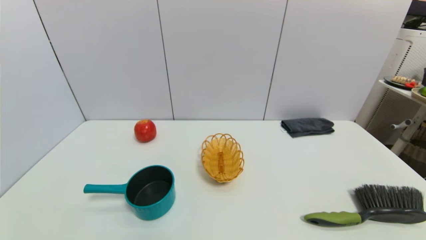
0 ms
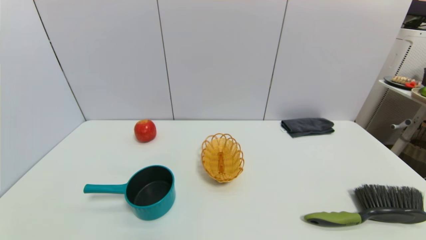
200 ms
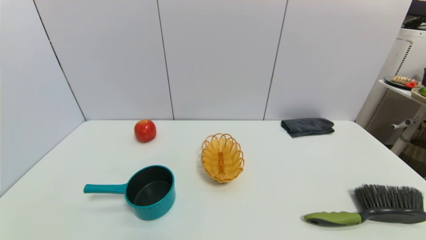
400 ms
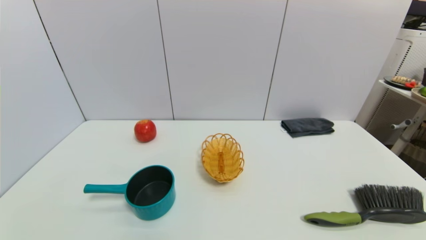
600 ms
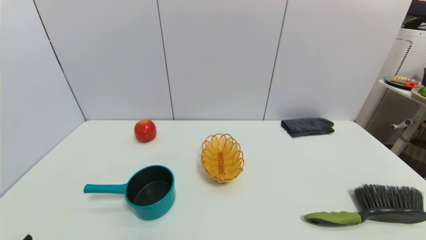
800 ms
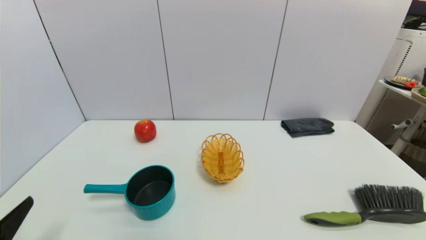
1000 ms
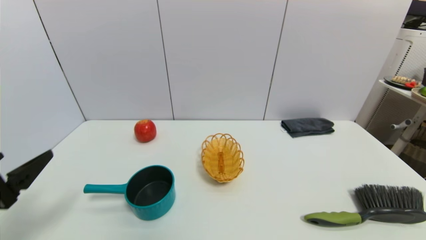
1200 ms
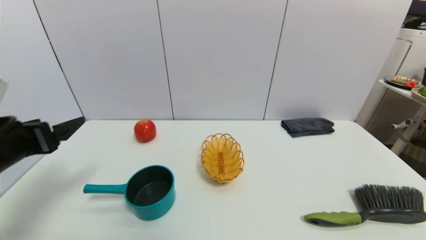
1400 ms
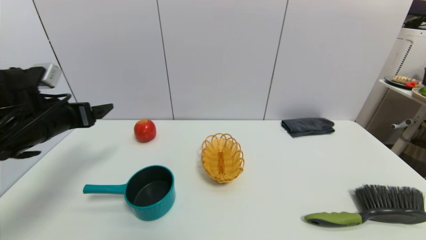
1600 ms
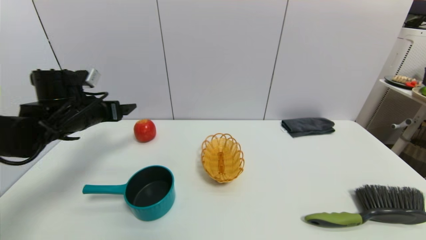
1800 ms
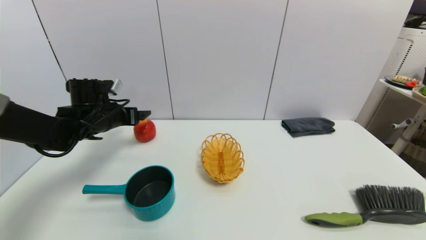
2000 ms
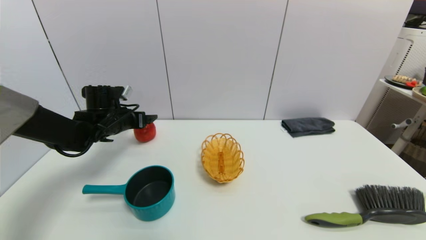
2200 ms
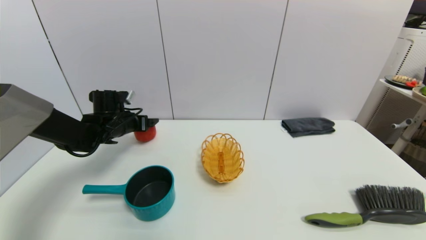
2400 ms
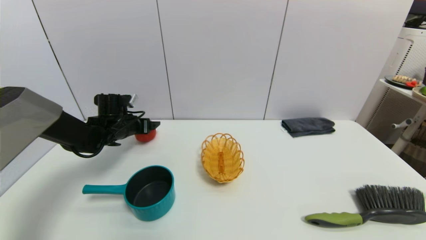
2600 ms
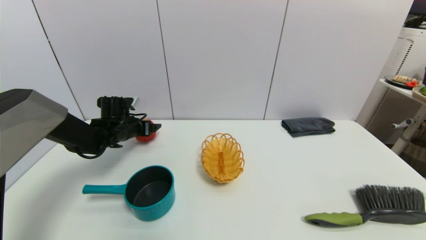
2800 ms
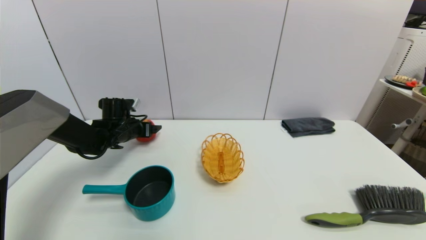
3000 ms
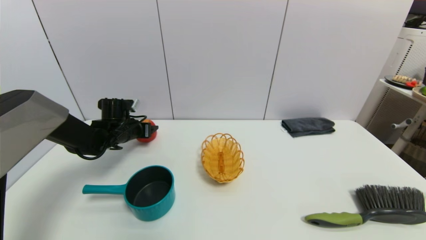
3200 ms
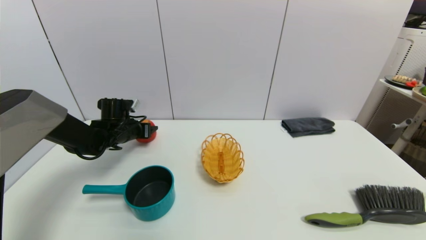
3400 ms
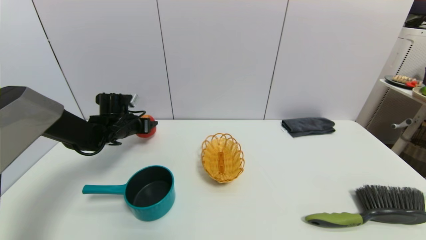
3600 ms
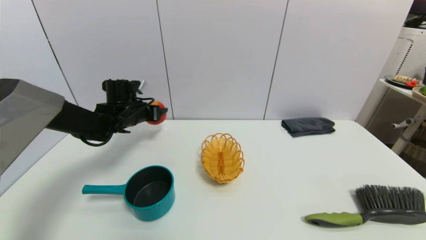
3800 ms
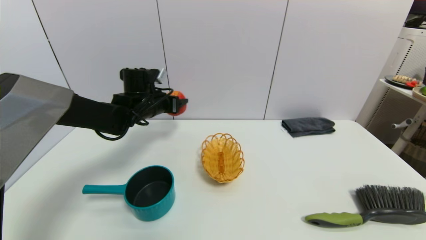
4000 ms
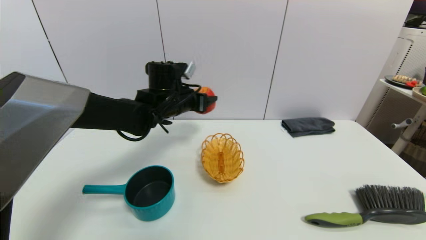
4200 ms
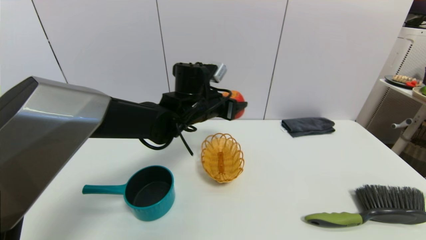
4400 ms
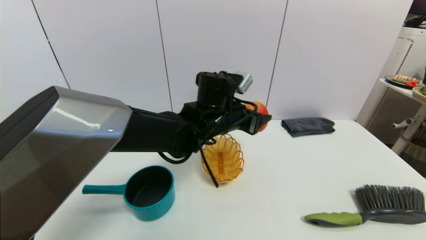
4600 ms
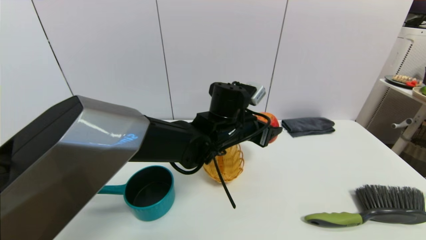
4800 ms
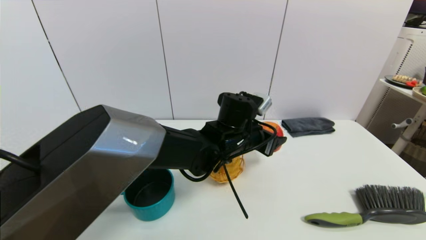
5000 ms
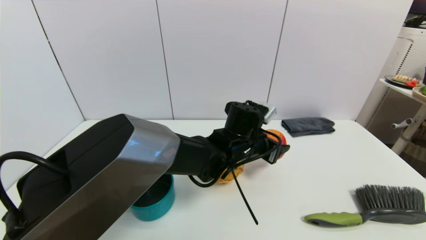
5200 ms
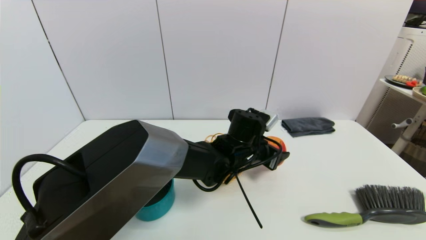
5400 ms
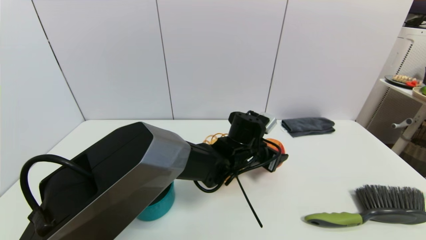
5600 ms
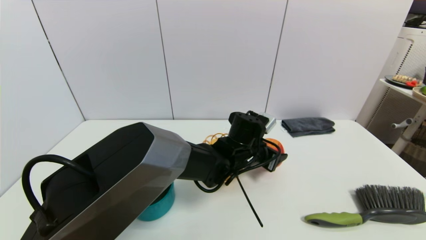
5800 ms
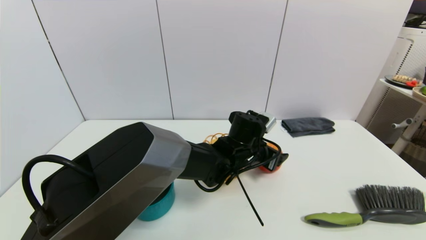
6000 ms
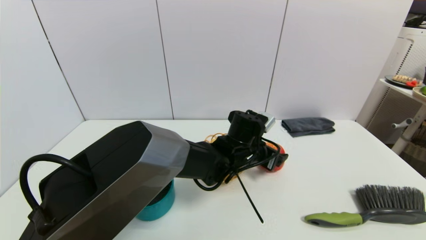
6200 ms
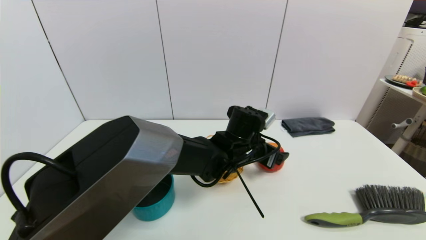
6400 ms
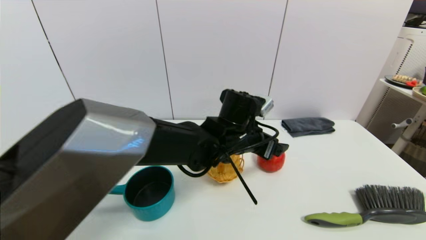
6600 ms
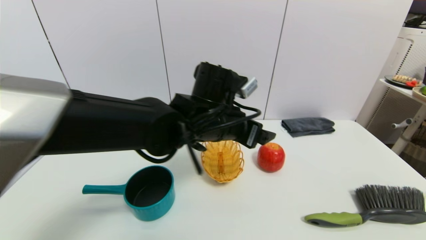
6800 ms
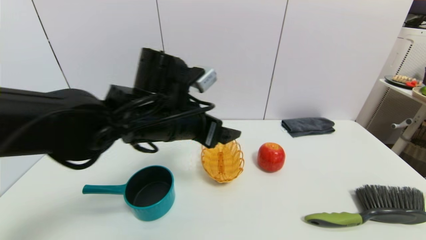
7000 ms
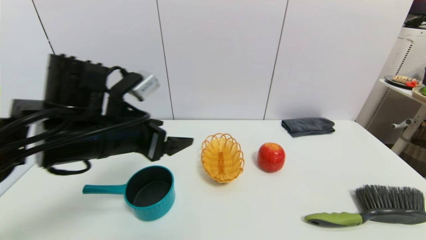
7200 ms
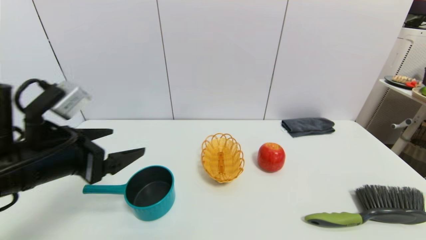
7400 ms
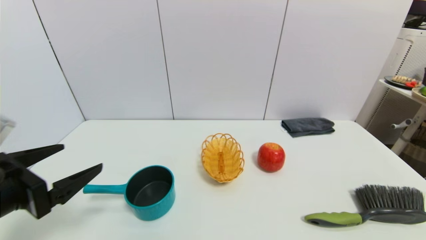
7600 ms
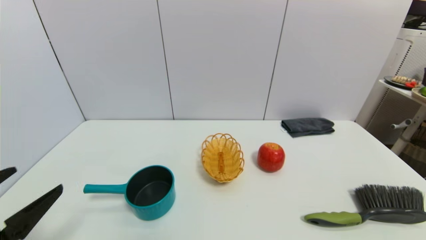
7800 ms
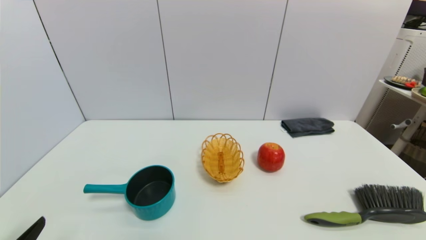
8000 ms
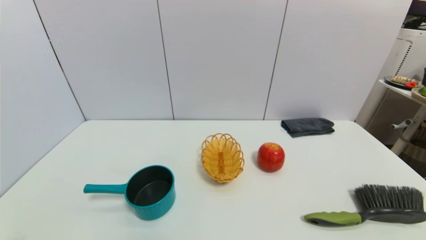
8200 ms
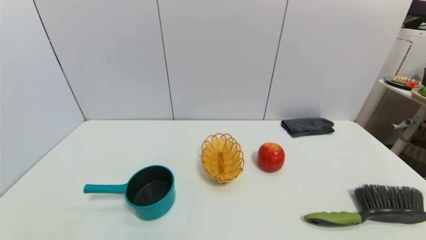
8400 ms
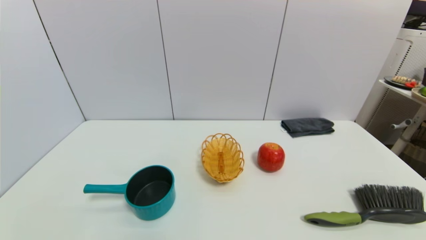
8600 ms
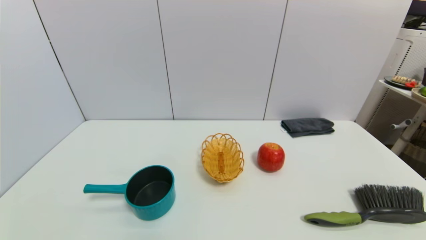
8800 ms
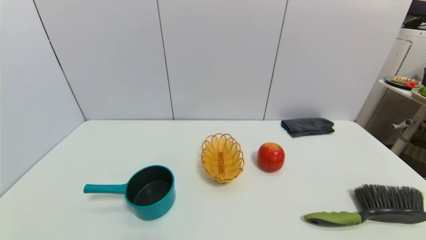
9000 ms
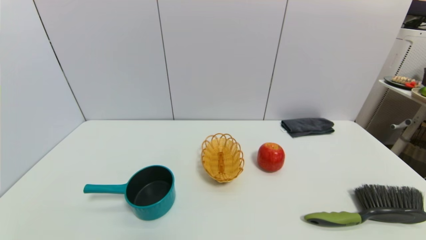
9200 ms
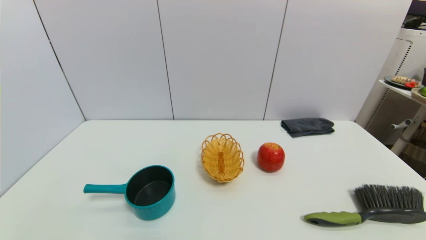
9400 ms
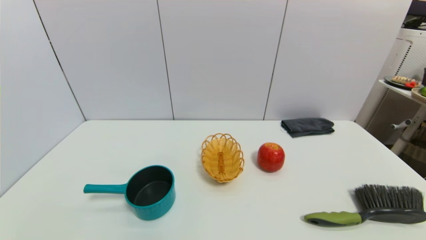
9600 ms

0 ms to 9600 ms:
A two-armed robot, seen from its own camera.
Task of the whole recording: put the apple in the designated position.
Step, 800 ms to 3200 ms: Grasp the apple with left gripper.
Step, 3400 ms to 6800 ms: Place the apple on the table with left gripper.
0 ms to 1600 ms: The left gripper is displaced forward and upward by some 35 cm.
1600 ms to 3200 ms: The left gripper travels forward and downward by approximately 20 cm, and closes.
3200 ms to 4800 ms: The left gripper travels to the right by roughly 30 cm.
4800 ms to 6400 ms: The left gripper ends up about 5 cm from where it was, and opens up.
6400 ms to 8000 ms: The left gripper is displaced to the left and backward by approximately 50 cm.

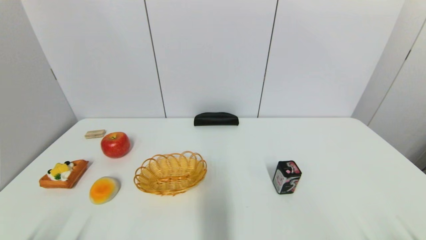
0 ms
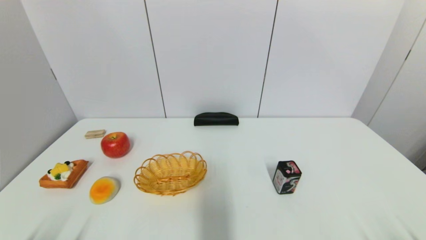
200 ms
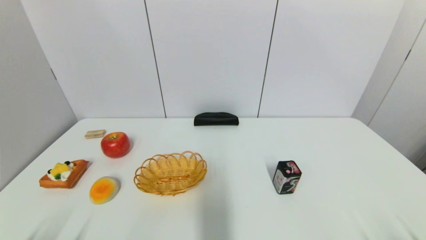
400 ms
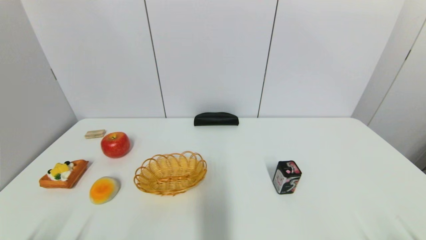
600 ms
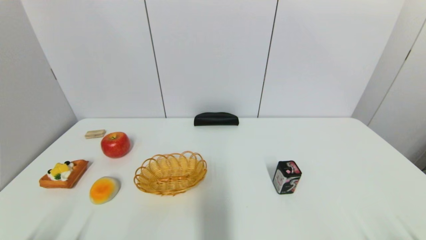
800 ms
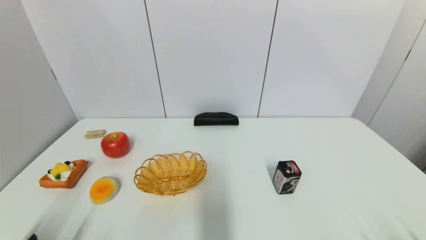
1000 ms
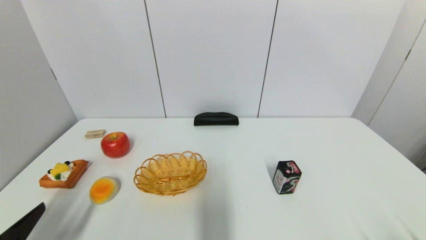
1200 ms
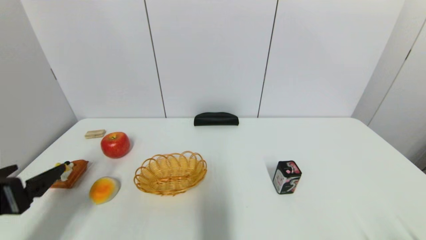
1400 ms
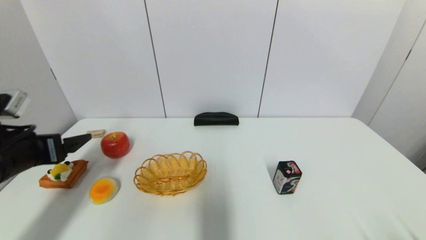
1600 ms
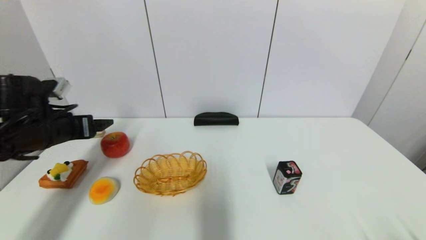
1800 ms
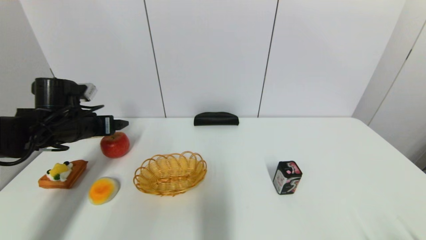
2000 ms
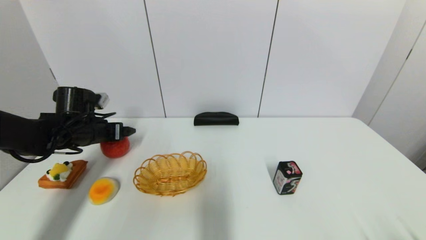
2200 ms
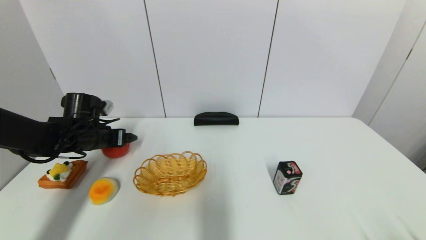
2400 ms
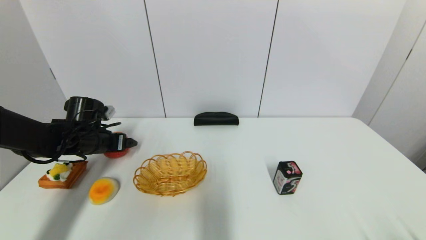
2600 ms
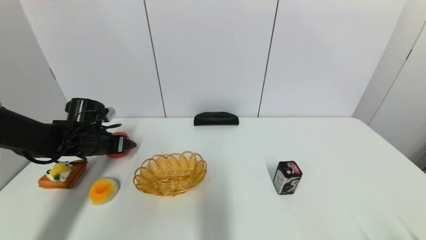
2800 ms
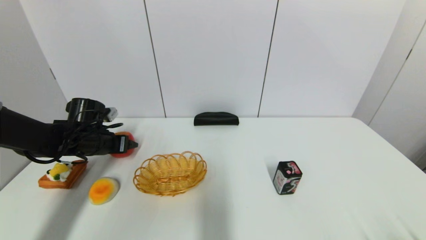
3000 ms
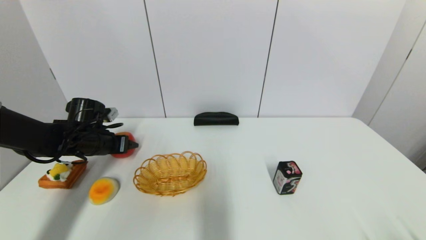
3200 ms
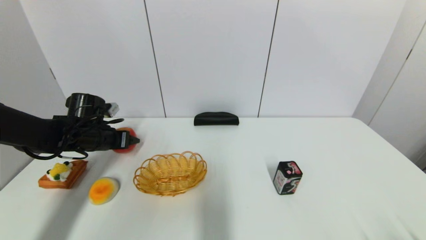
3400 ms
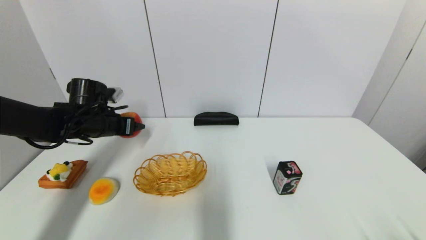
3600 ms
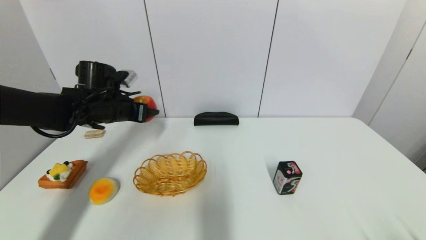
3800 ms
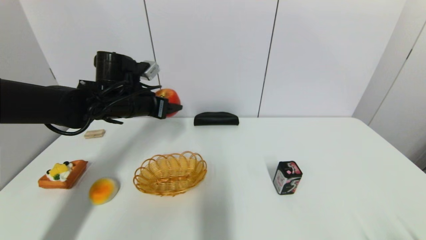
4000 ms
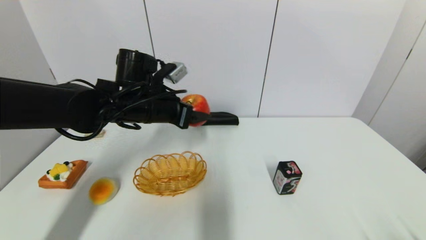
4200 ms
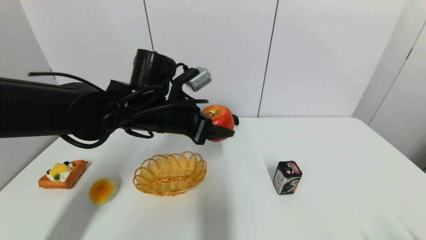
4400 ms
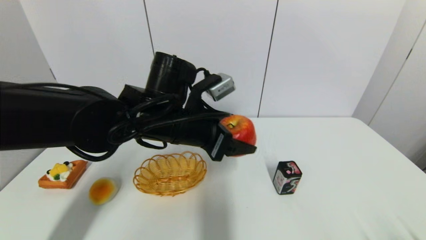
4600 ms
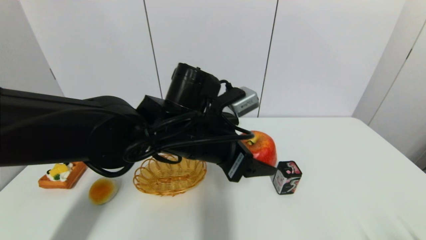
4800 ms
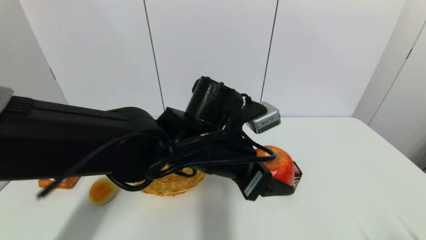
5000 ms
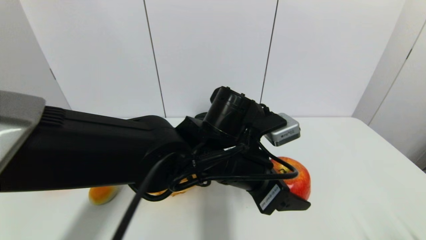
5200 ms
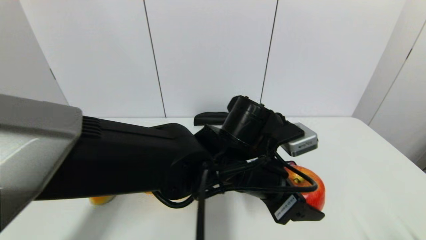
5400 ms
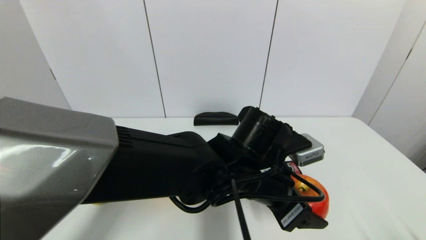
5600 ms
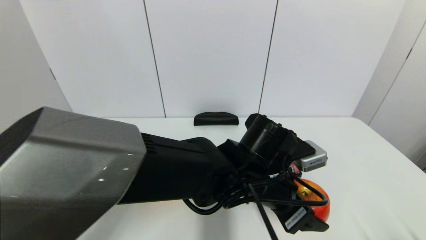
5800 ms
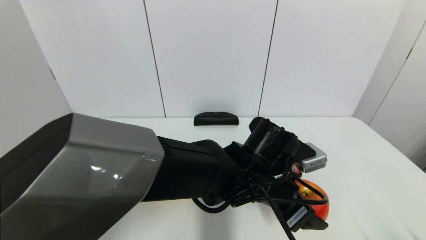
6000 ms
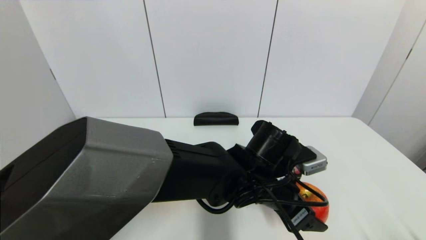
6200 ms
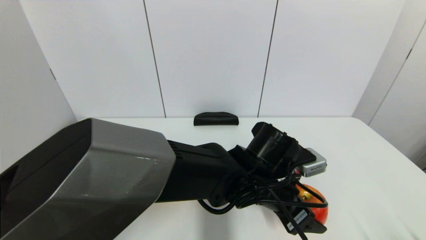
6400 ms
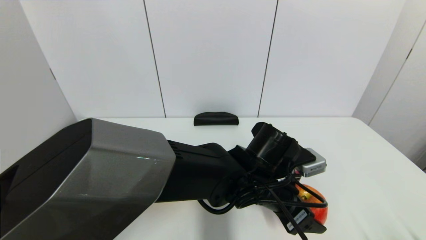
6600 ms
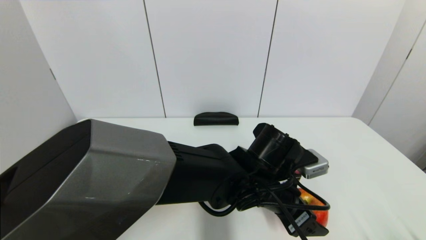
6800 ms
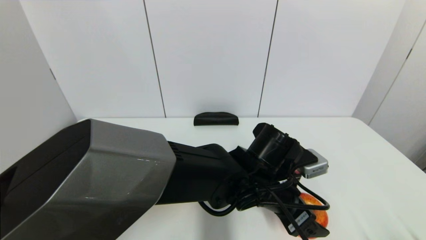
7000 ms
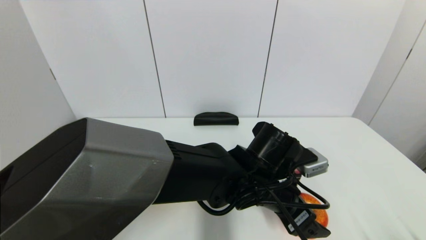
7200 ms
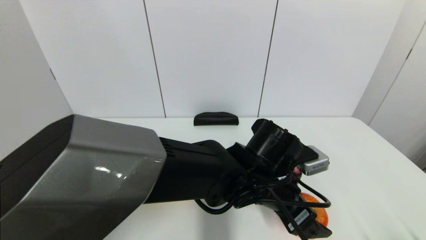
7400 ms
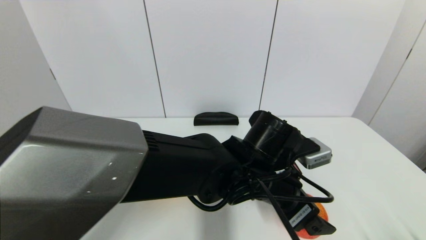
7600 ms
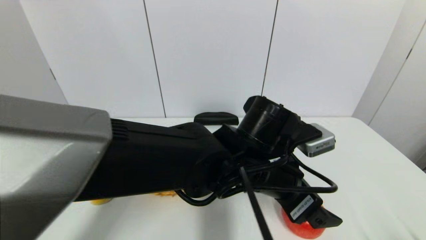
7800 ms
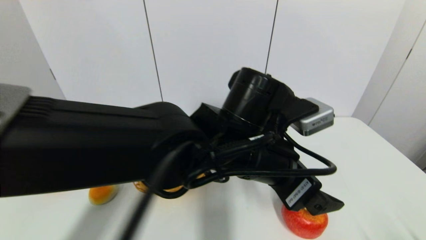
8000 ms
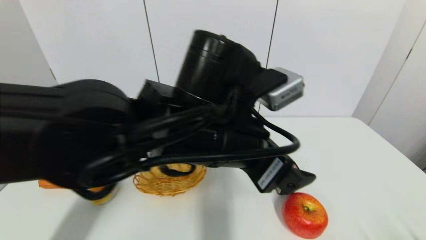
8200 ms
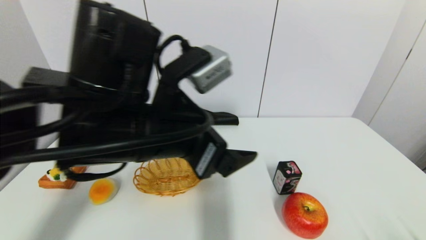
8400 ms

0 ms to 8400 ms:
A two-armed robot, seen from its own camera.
Task of the whole recording: put the apple in the designated position.
Step, 1200 ms to 3000 ms: Grasp the apple with left gripper.
Step, 3200 ms to 8000 ms: Place the apple on the table with left gripper.
0 ms to 1400 ms: The left gripper goes some 20 cm forward and upward.
1400 ms to 2800 ms: The left gripper shifts some 25 cm forward, and closes up.
2800 ms to 4200 ms: The left gripper goes roughly 20 cm to the right and upward, and closes up.
4200 ms to 5600 ms: The left gripper moves to the right and backward, roughly 20 cm.
5600 ms to 7000 ms: The left gripper opens its fingers.
7000 ms to 8400 ms: The left gripper moves to the left and upward, about 20 cm, and opens its fingers.
